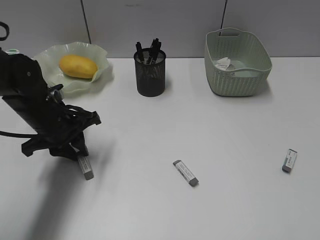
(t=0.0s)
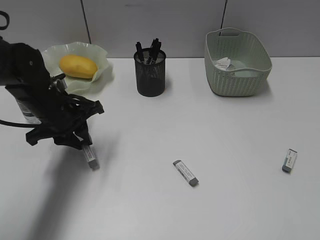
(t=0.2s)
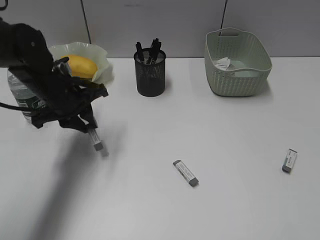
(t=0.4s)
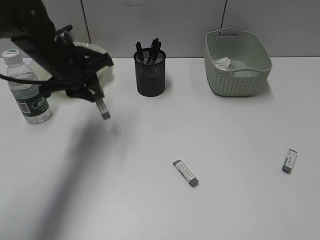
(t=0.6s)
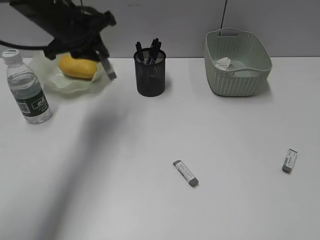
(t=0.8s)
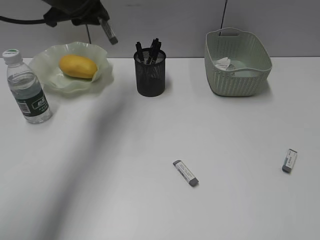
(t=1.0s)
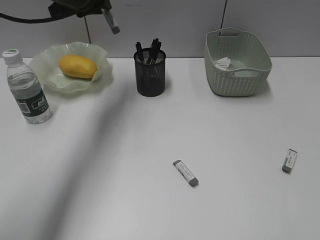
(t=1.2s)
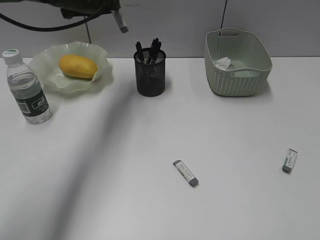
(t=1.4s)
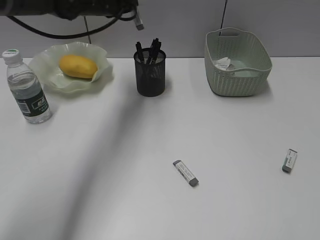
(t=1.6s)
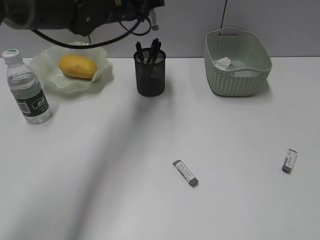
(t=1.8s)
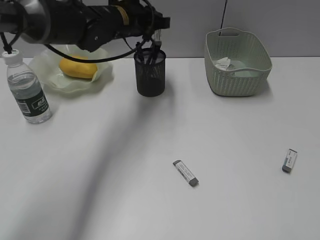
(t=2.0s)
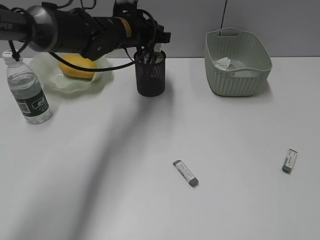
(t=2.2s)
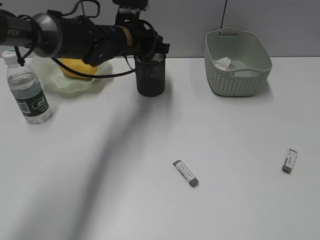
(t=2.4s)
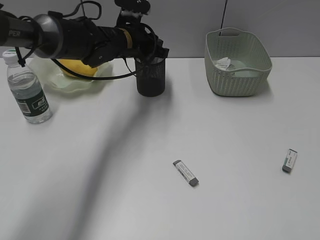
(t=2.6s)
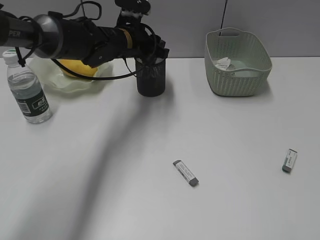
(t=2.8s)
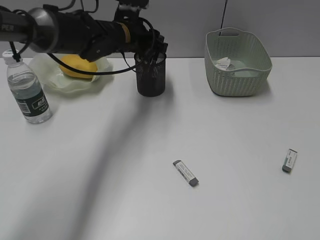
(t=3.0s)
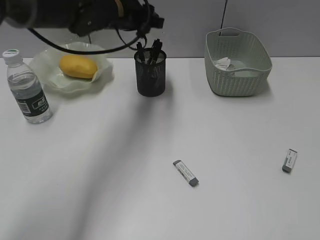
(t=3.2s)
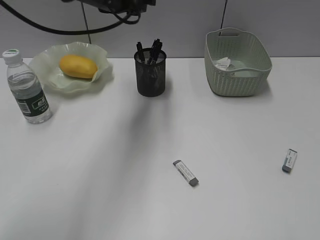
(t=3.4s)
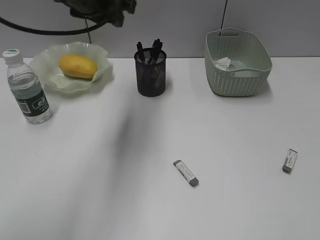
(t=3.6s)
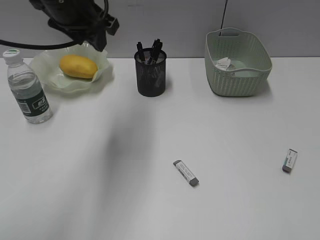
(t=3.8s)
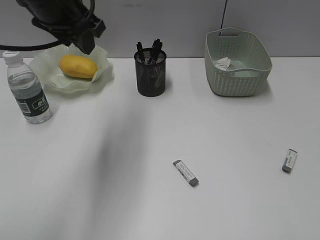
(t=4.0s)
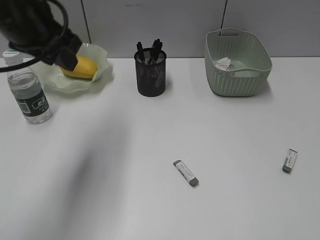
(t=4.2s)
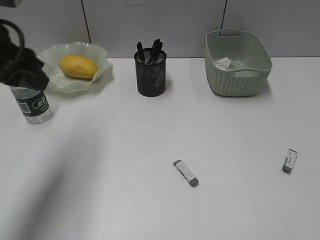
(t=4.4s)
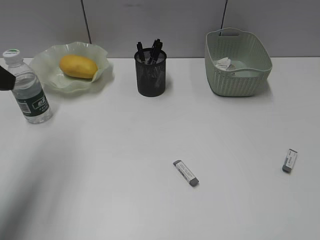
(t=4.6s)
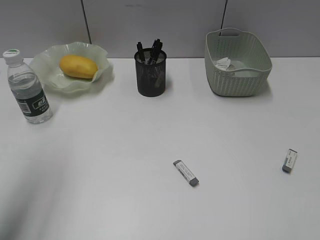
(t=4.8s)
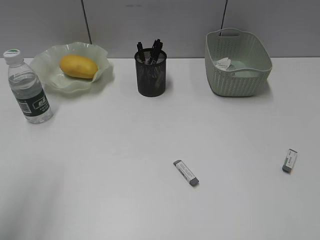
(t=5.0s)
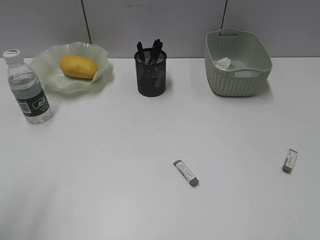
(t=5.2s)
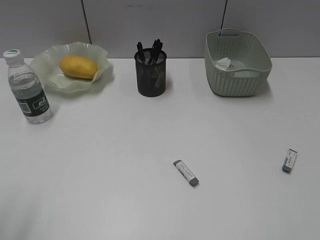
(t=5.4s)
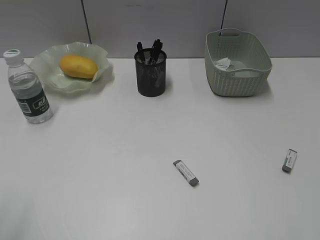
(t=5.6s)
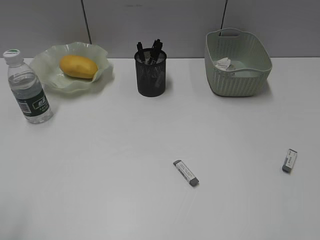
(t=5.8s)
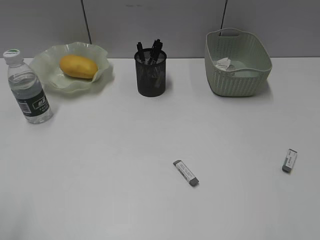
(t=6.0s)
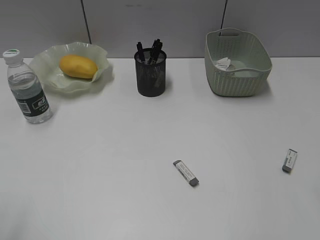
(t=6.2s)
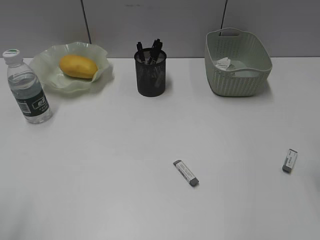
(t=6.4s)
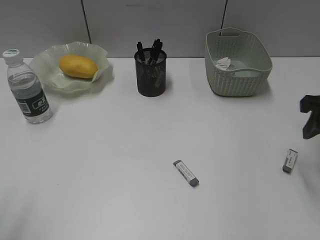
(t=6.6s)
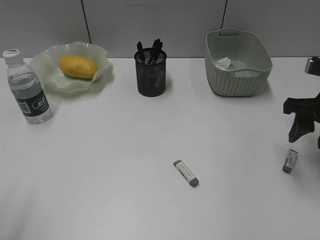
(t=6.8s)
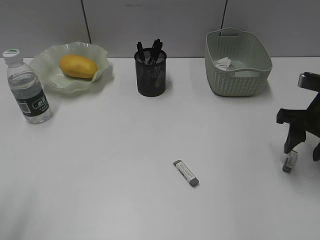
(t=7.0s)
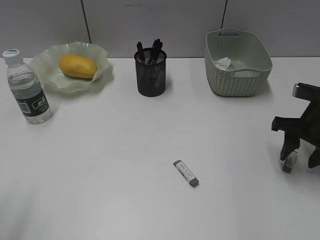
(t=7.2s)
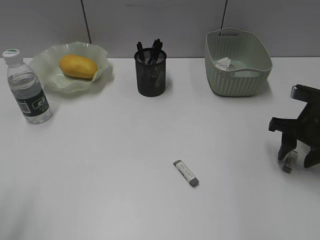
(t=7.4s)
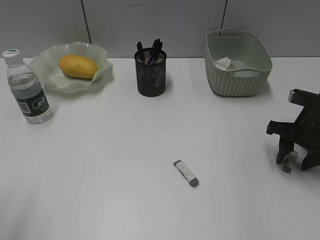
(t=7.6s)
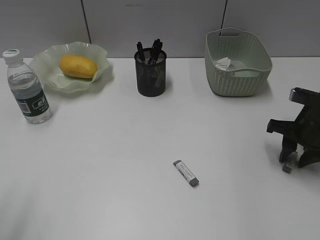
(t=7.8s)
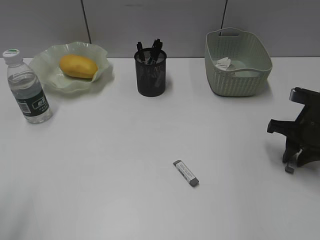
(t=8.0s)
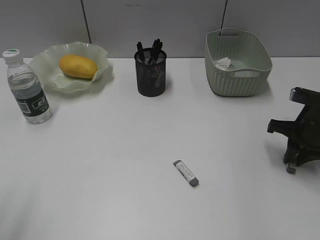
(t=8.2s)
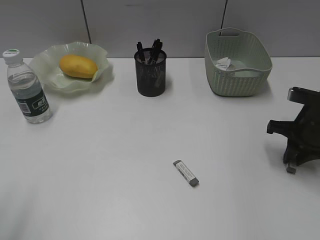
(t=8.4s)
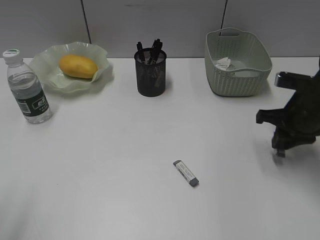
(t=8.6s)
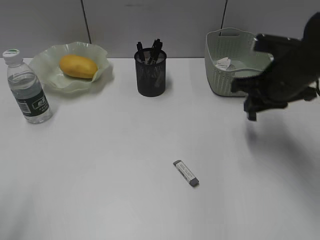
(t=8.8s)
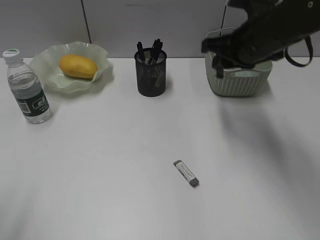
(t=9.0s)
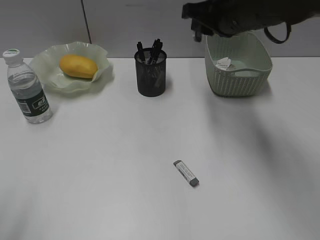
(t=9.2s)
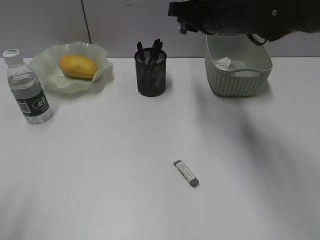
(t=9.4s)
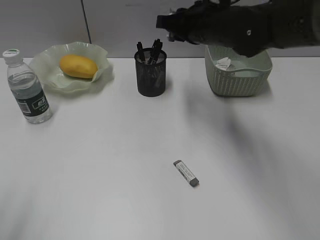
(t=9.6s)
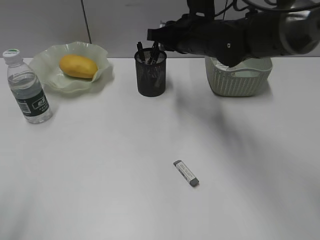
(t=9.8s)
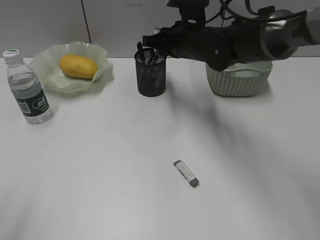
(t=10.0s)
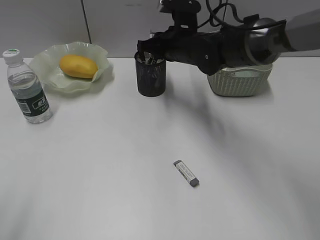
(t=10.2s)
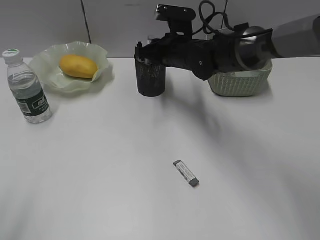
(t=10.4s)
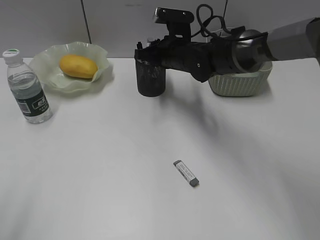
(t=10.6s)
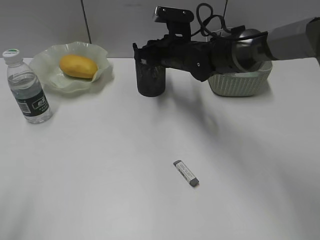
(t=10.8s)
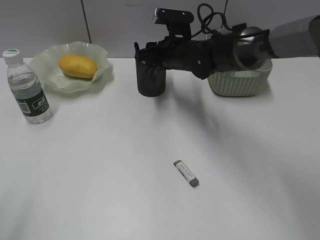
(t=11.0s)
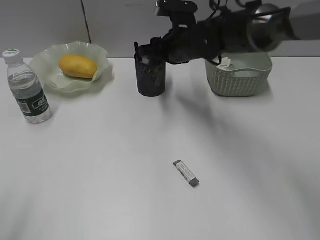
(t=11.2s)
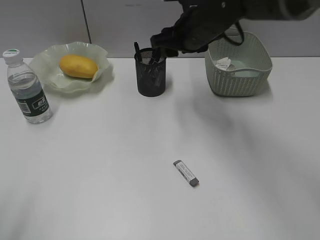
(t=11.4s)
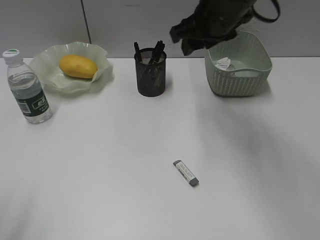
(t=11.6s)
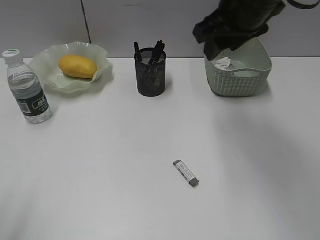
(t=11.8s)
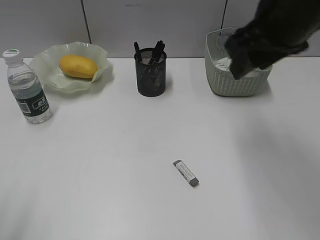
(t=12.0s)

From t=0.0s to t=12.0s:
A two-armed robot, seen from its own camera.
Step, from t=0.0s to t=3.0s: Place the eraser in pen holder with left gripper.
Step, from t=3.2s to t=8.4s: Grasp the eraser with right gripper.
Step, from t=8.6s to t=10.8s: Place the eraser in pen holder with right gripper.
From t=0.0s to t=1.6s: The left gripper travels upward, forward and to the right by roughly 20 cm.
From t=1.6s to t=3.0s: The left gripper is displaced downward by about 10 cm, and opens.
From t=3.0s to t=4.4s: The left gripper goes approximately 25 cm backward, to the left and upward.
From t=4.4s to t=6.0s: The left gripper travels backward and to the left by roughly 25 cm.
From t=6.0s to t=7.6s: The right gripper is displaced forward and downward by about 30 cm.
From t=7.6s to t=9.0s: The right gripper heads to the left and upward, covering about 15 cm, and closes.
From t=9.0s to t=10.4s: The right gripper travels to the left, forward and downward by about 15 cm.
From t=10.4s to t=12.0s: The right gripper heads upward, backward and to the right, covering some 25 cm, and opens up.

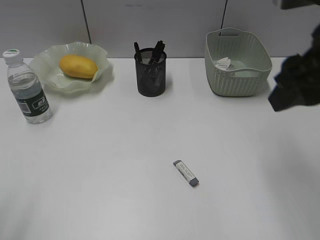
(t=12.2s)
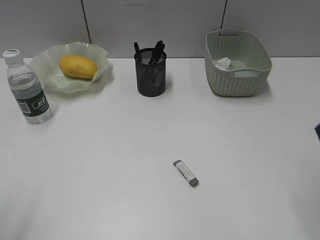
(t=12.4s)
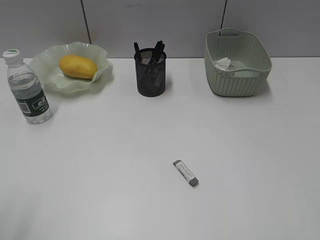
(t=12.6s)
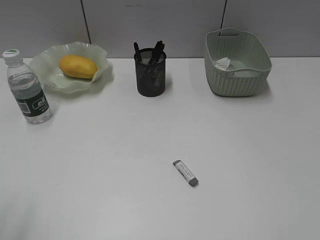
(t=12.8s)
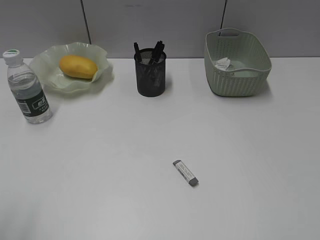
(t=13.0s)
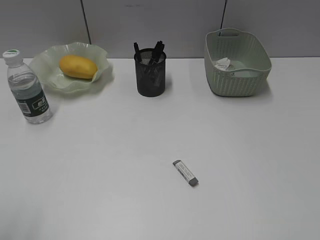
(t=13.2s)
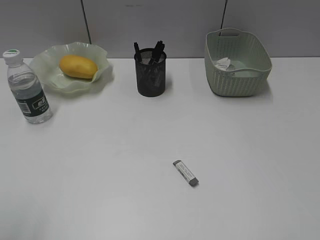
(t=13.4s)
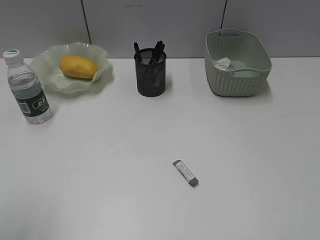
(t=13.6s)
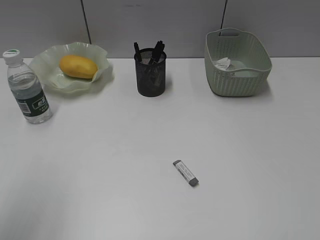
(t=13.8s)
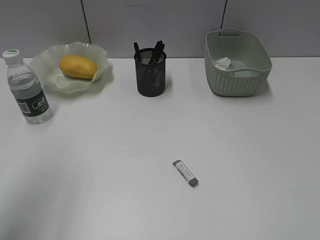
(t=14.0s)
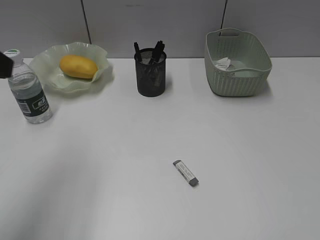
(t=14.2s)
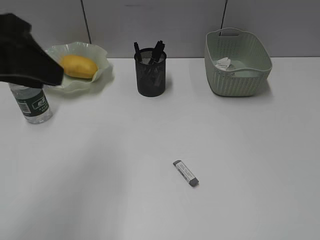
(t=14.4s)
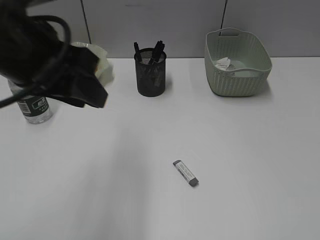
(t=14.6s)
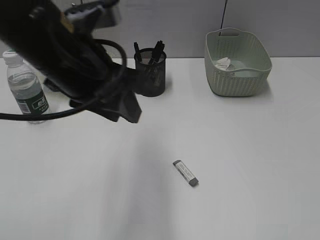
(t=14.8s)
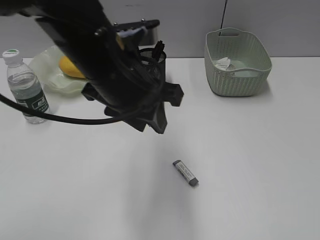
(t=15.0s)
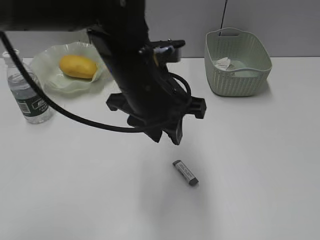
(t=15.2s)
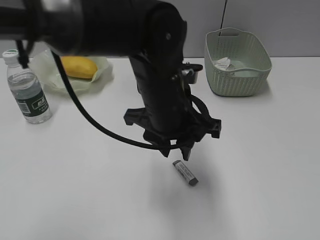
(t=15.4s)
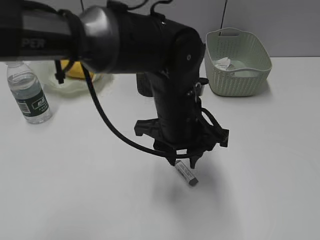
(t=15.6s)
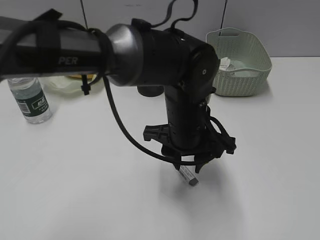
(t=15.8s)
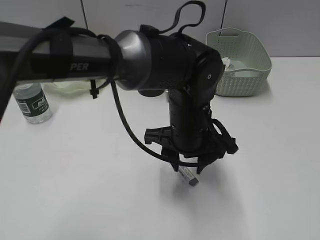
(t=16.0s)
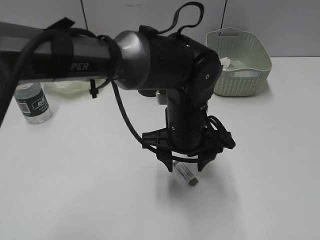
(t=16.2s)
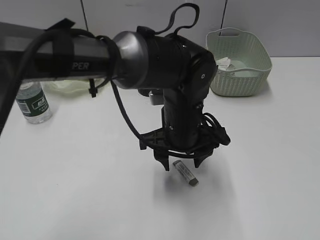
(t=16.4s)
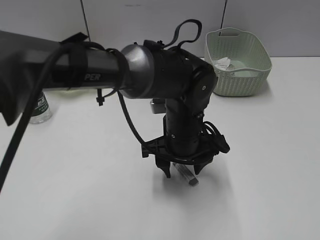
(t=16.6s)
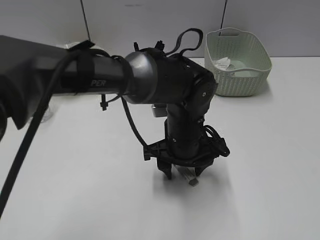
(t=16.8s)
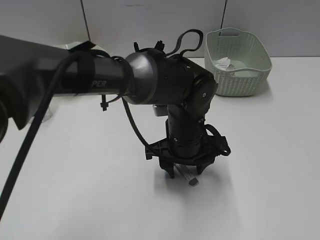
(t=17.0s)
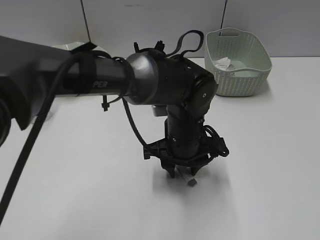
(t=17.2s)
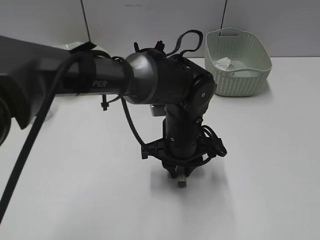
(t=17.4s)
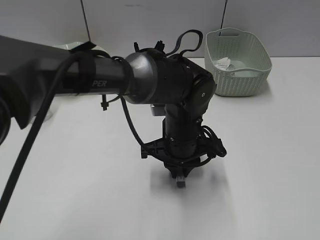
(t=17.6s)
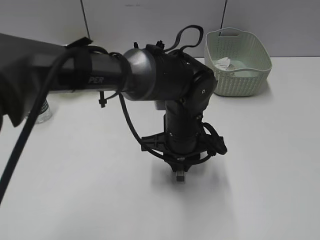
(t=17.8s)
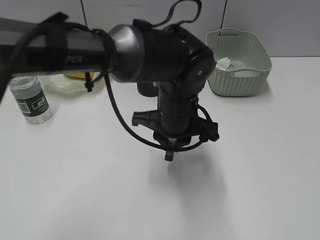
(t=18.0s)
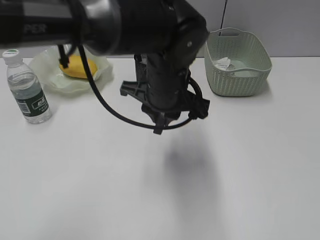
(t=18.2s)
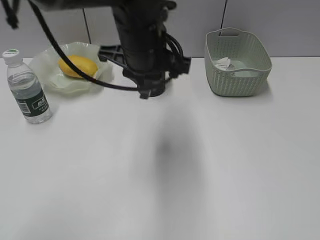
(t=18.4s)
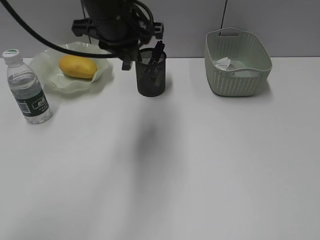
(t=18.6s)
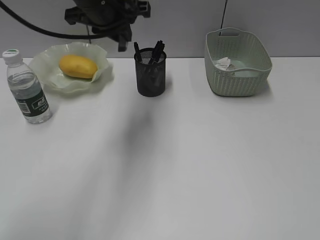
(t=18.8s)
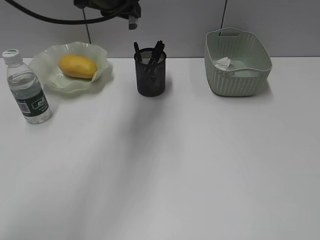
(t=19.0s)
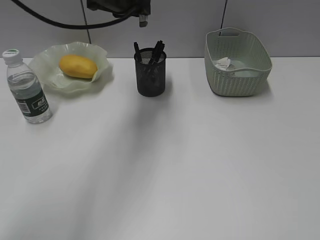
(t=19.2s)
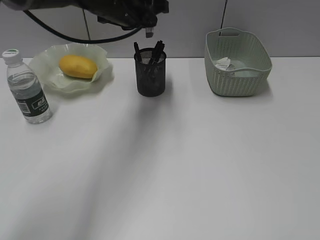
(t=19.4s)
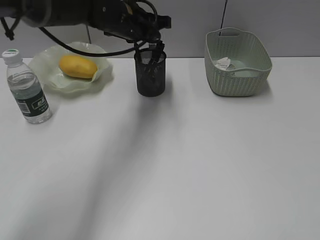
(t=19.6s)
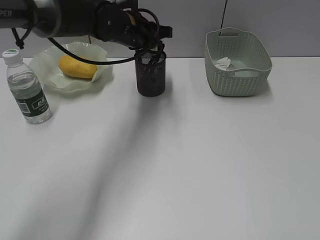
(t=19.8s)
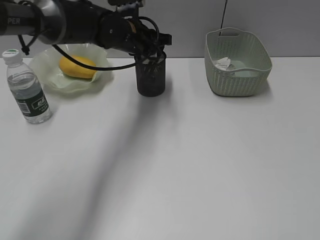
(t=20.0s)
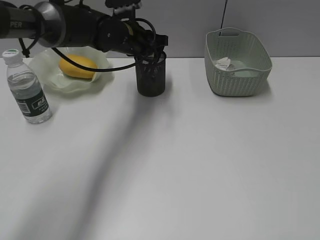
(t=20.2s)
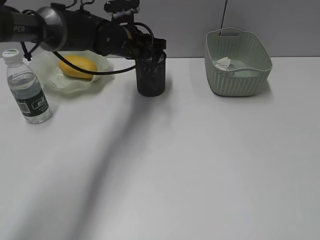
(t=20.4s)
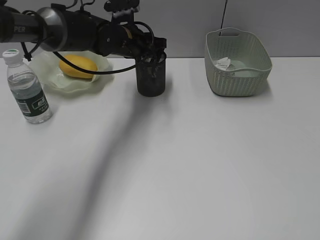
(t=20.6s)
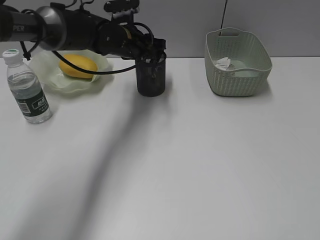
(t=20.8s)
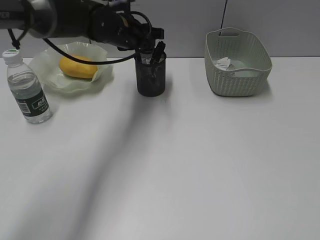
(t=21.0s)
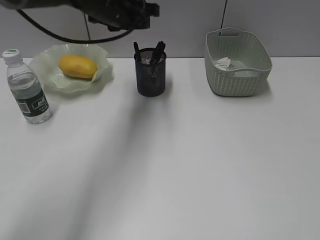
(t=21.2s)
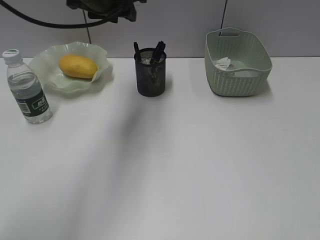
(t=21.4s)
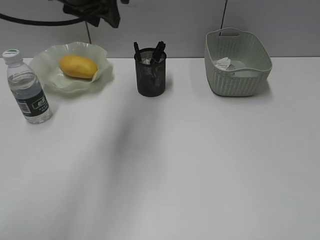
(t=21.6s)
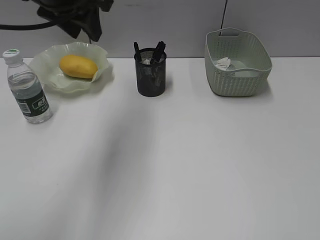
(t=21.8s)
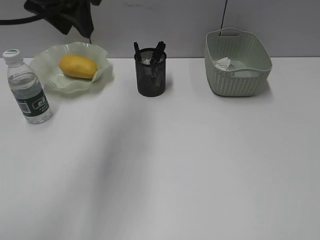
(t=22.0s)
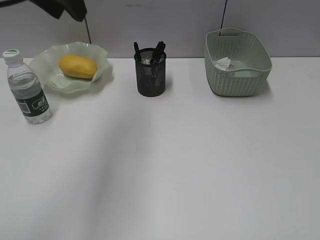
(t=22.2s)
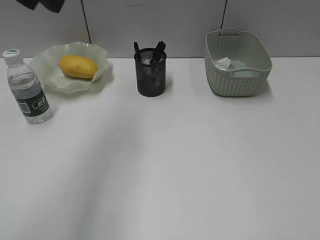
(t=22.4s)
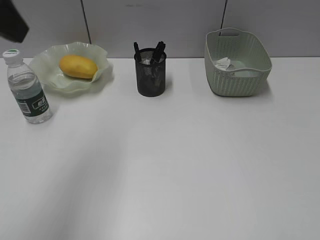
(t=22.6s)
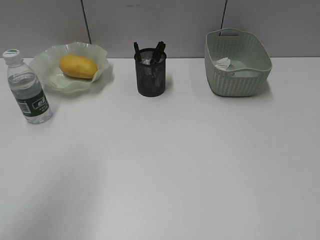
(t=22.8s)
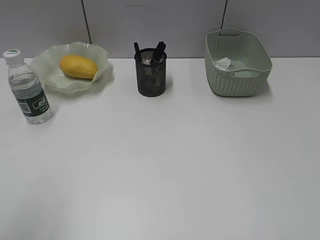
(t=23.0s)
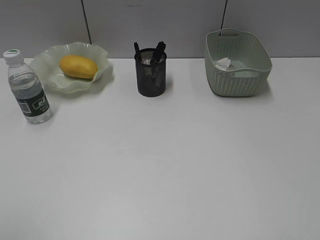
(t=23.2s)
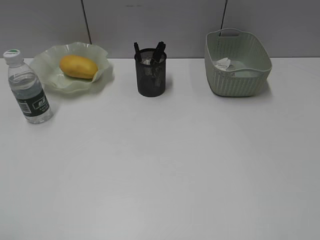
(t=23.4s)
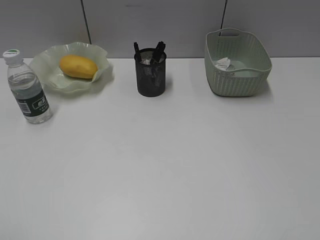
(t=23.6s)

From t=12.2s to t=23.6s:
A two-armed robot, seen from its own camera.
Step, from t=12.2s to t=17.6s: Grasp the eraser with left gripper.
Step, from t=17.8s to t=21.0s: Place the eraser in pen holder with left gripper.
From t=12.2s to t=13.6s: The right gripper shifts some 25 cm backward and to the right.
From t=13.6s to t=15.0s: The left gripper moves to the right and forward, roughly 30 cm.
From t=15.0s to t=16.4s: The left gripper goes approximately 15 cm downward and to the right.
From t=16.4s to t=17.8s: The left gripper closes.
From t=17.8s to t=19.4s: The left gripper moves forward, upward and to the left, some 25 cm.
From t=19.4s to t=20.8s: The left gripper moves downward, some 10 cm, and opens its fingers.
From t=20.8s to t=22.2s: The left gripper goes roughly 25 cm upward, backward and to the left.
From t=22.2s to t=23.6s: The left gripper moves backward and to the left, about 35 cm.
